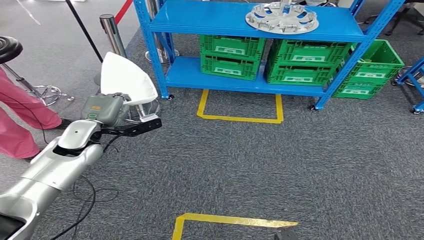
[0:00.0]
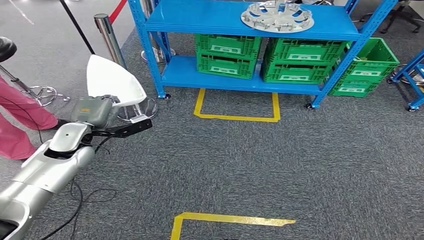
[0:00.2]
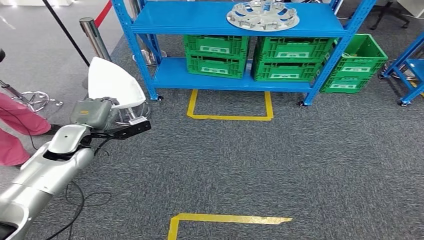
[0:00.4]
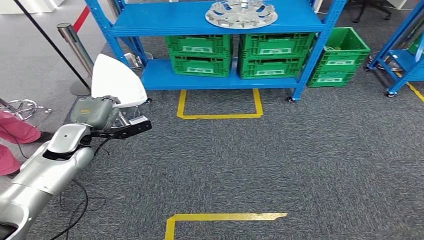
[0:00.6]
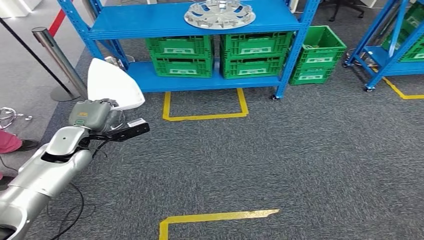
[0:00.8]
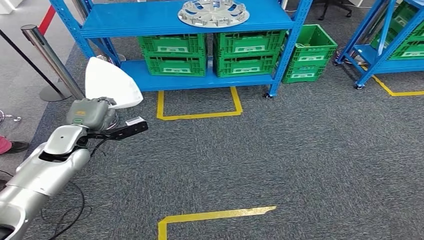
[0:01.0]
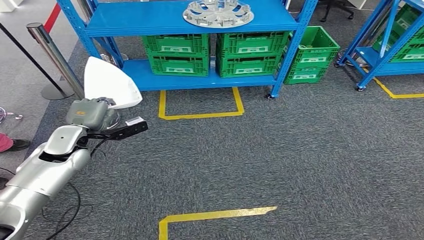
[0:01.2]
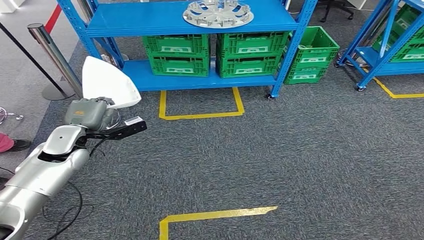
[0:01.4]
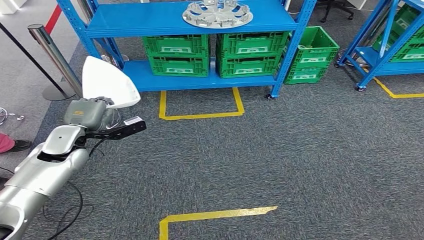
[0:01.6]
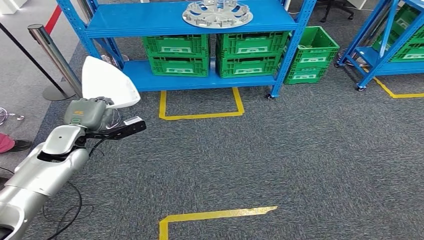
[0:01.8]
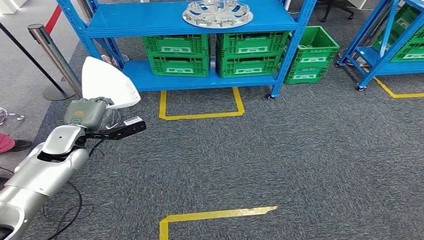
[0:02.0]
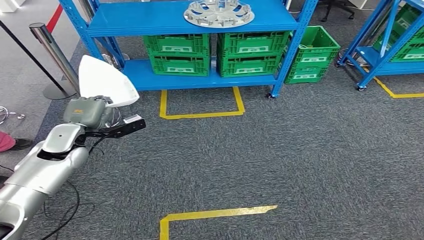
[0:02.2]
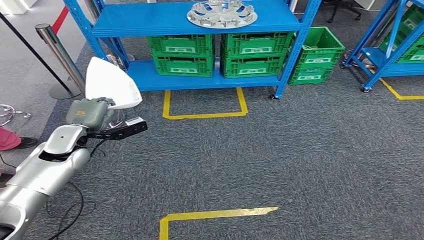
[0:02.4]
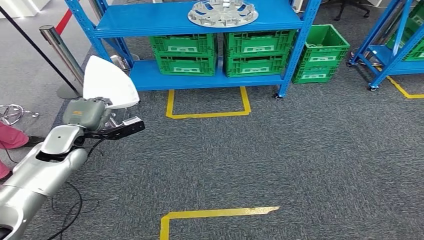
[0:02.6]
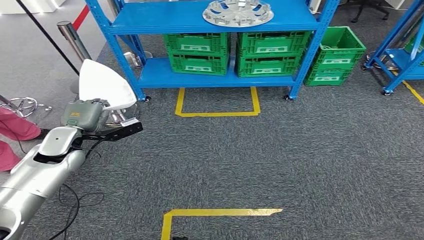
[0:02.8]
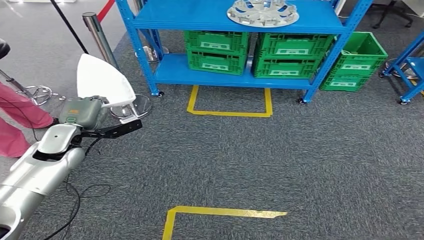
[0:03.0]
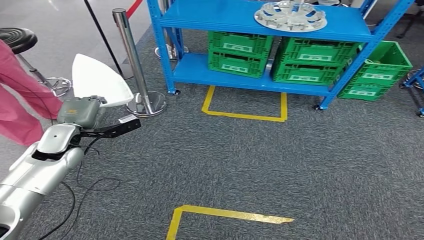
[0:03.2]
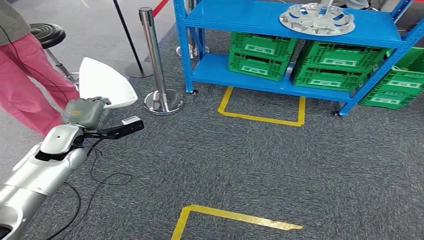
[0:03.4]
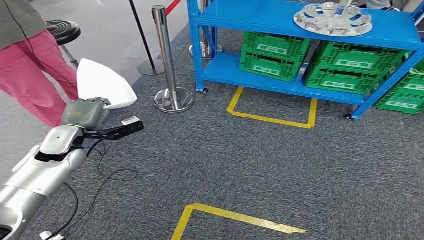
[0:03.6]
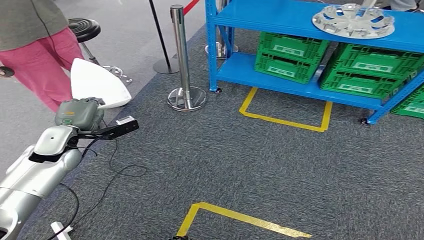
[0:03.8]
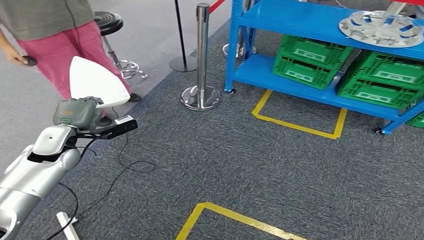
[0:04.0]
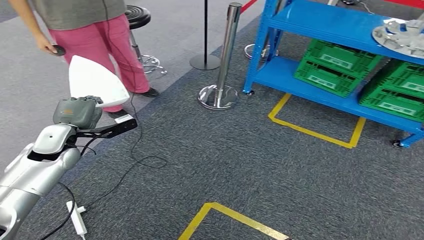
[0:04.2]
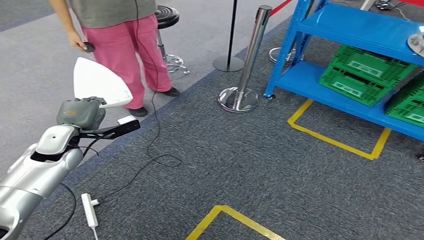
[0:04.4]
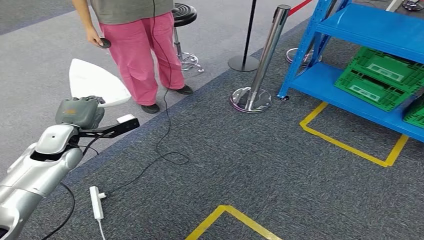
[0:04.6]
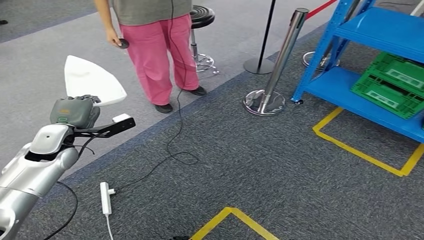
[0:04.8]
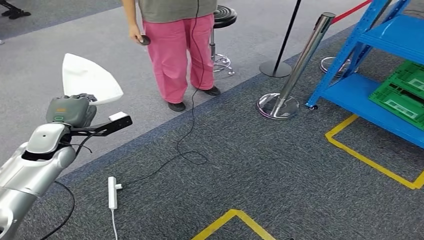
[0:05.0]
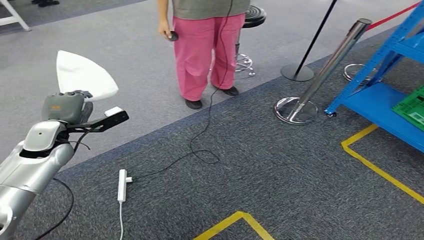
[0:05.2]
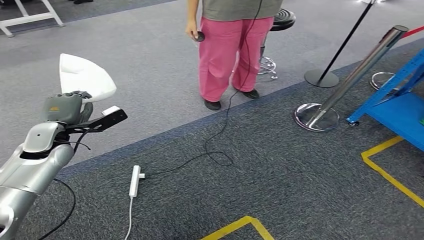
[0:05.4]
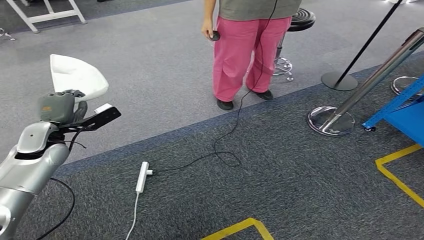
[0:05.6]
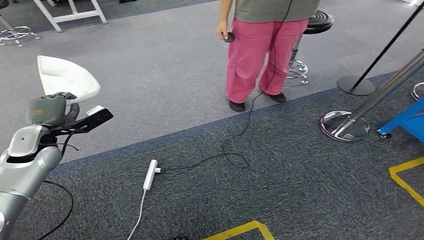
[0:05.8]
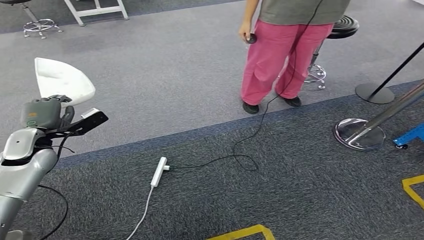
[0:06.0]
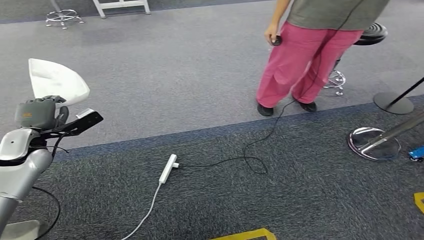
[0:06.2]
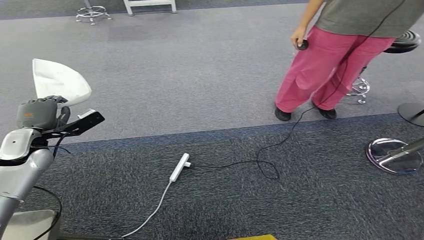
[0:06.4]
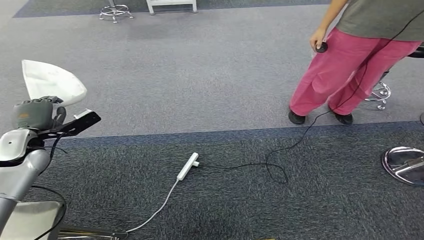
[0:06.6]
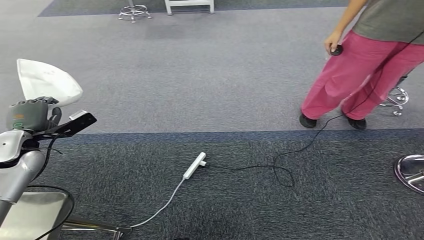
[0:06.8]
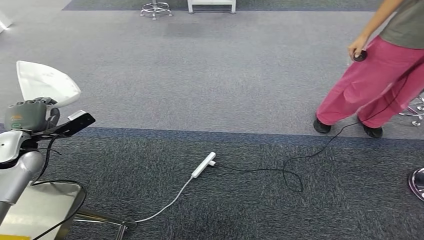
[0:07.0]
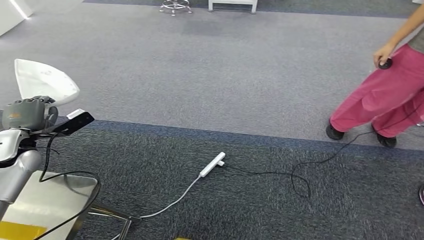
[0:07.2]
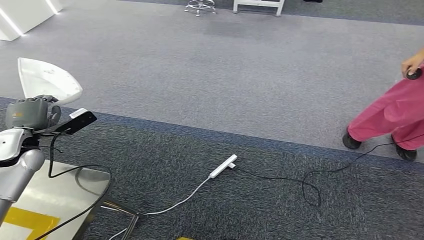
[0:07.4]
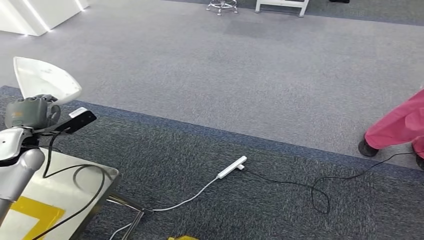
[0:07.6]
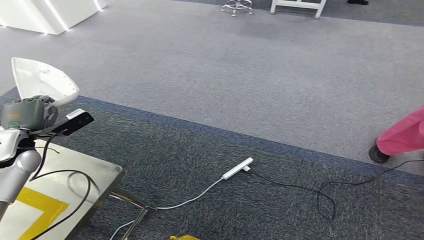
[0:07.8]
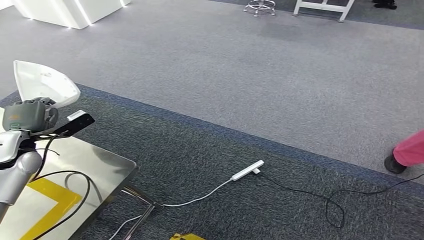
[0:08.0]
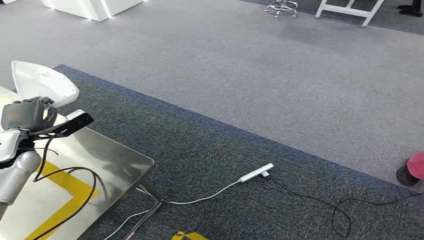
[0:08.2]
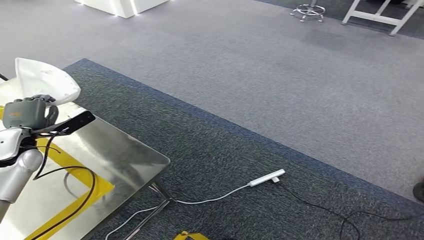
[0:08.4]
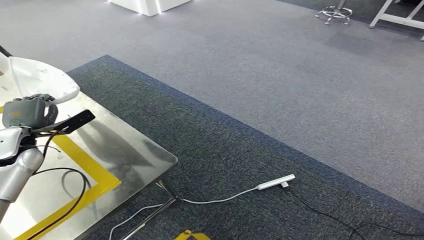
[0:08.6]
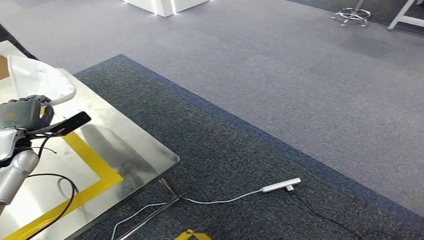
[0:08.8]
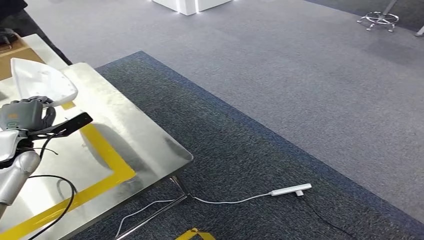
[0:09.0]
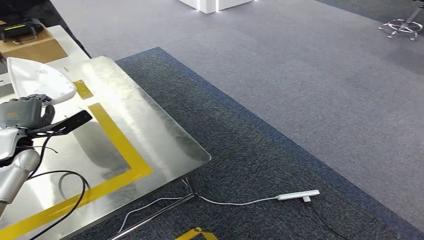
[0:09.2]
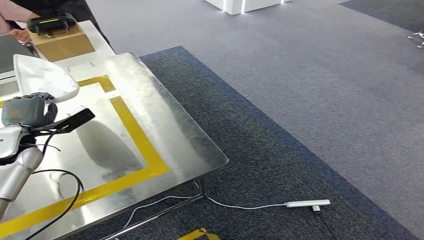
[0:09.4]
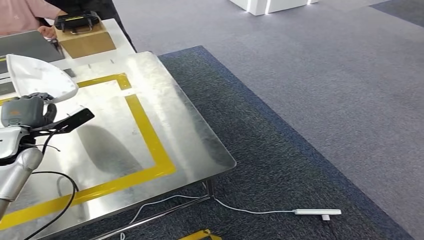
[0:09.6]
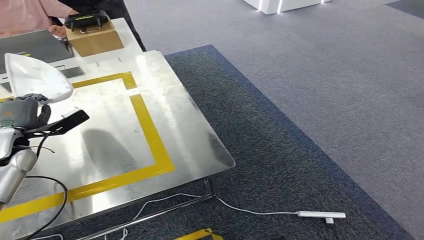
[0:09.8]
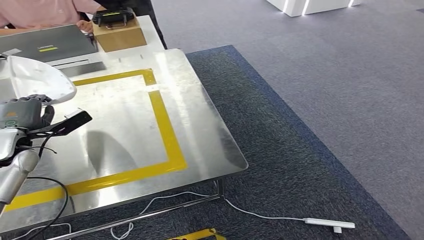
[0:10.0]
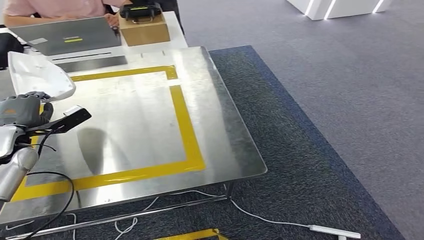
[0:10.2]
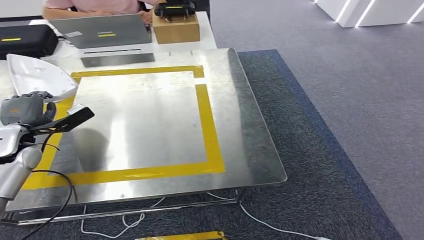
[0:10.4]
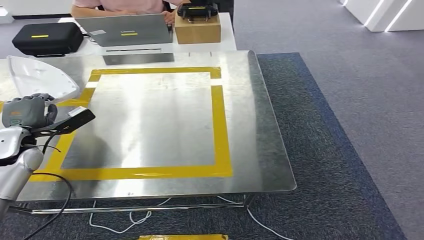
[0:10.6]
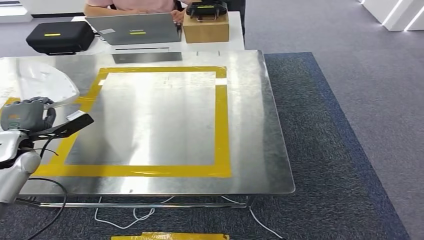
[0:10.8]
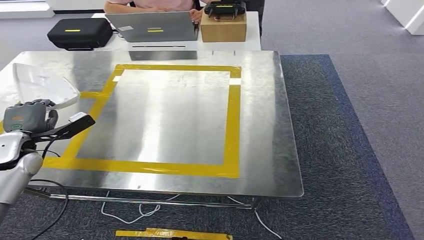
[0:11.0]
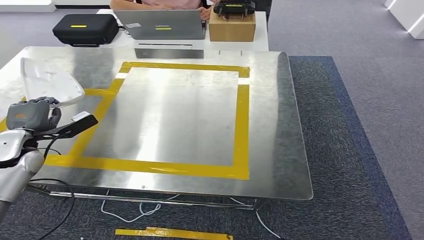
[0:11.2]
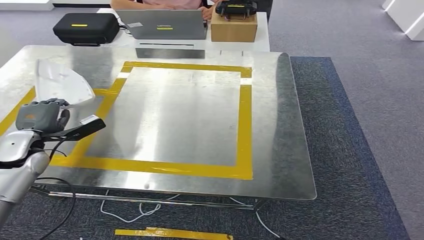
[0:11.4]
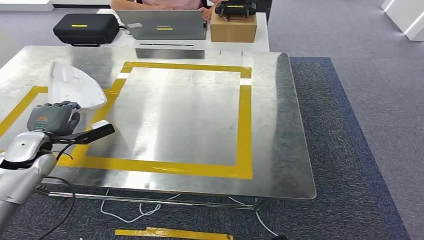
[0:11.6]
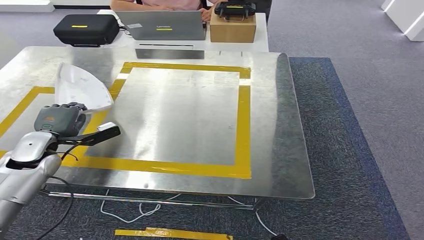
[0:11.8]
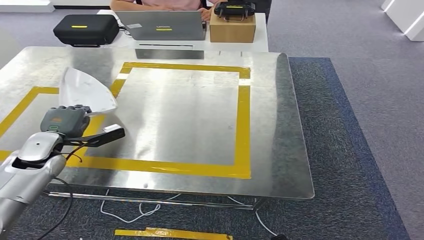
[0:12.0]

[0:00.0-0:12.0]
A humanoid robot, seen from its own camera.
Step, 0:00.0 to 0:09.6: Move the small component to the workbench.

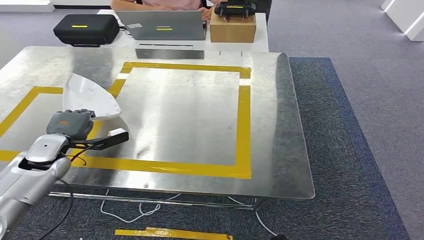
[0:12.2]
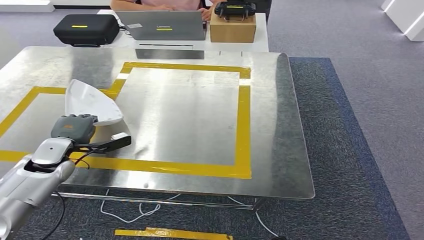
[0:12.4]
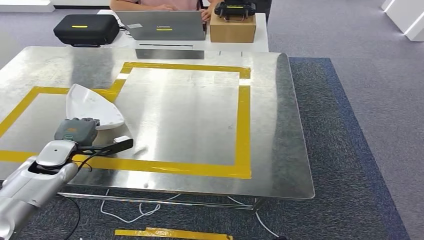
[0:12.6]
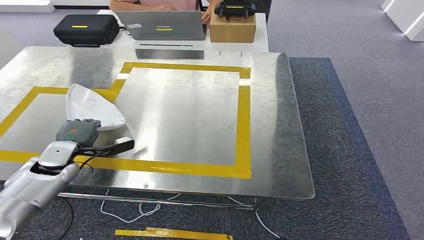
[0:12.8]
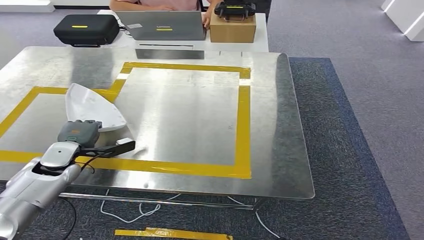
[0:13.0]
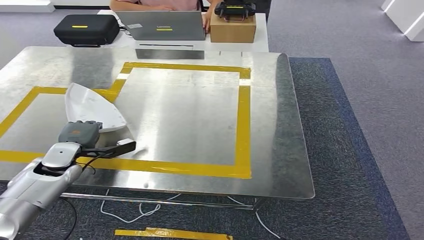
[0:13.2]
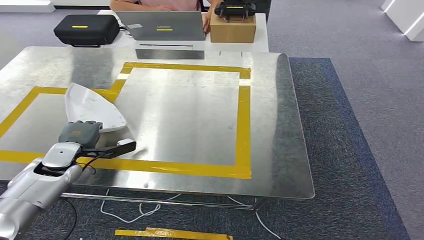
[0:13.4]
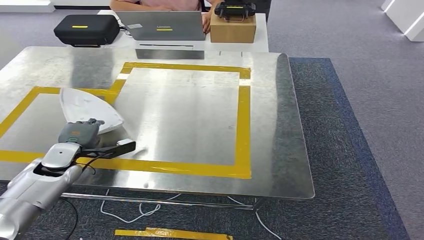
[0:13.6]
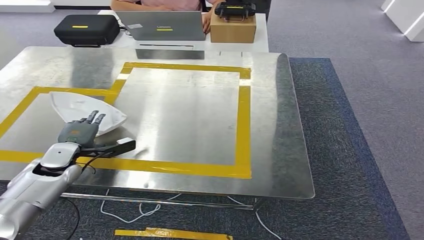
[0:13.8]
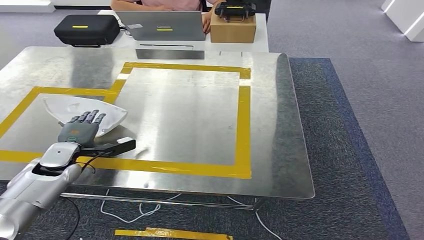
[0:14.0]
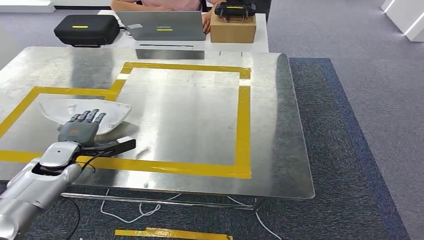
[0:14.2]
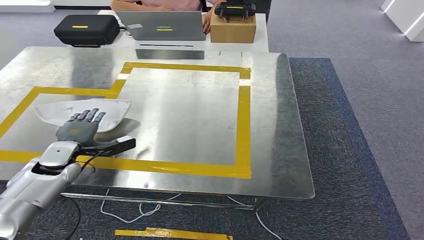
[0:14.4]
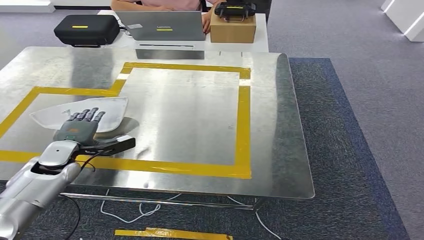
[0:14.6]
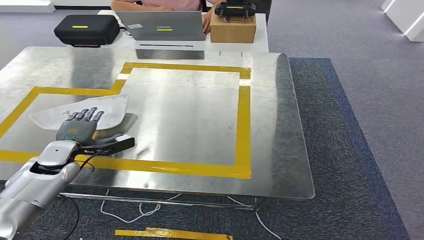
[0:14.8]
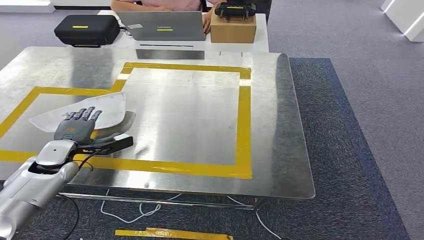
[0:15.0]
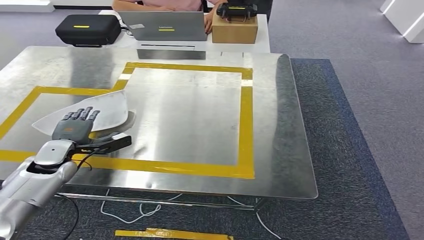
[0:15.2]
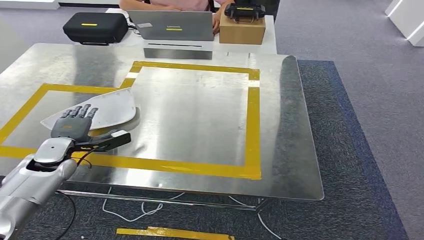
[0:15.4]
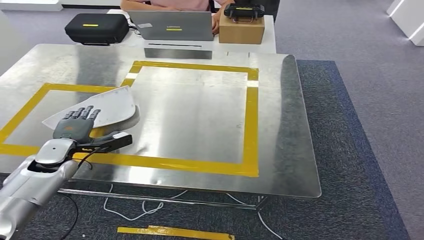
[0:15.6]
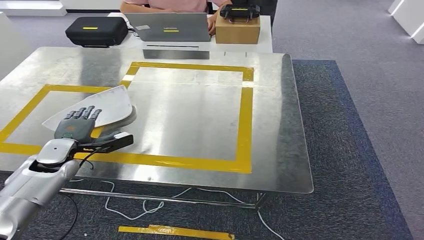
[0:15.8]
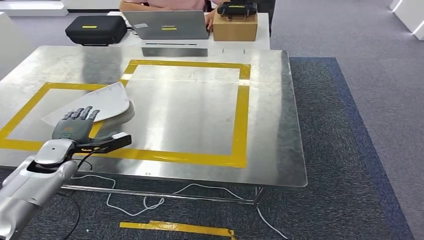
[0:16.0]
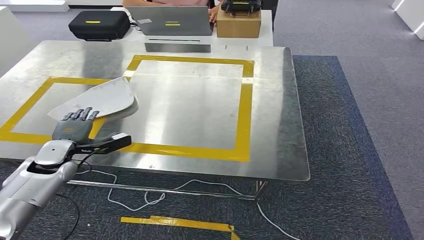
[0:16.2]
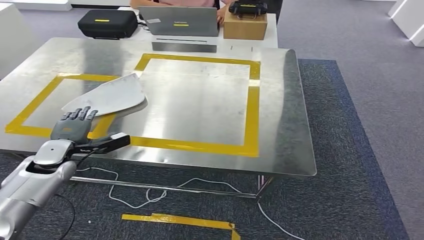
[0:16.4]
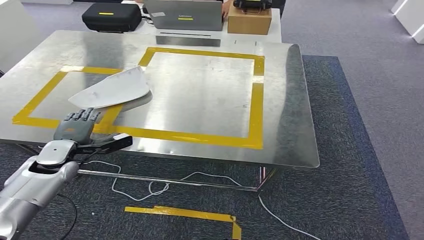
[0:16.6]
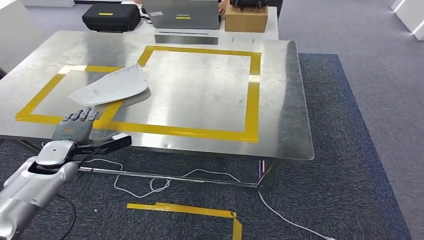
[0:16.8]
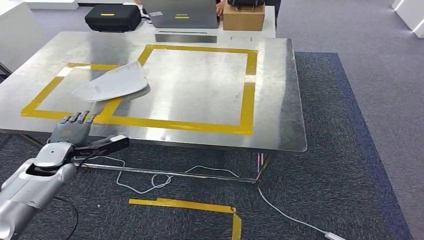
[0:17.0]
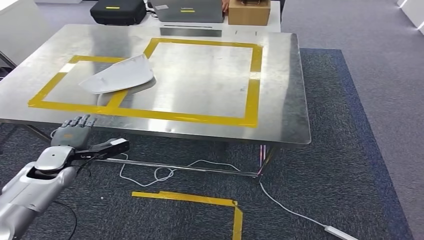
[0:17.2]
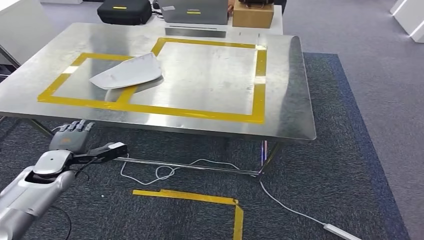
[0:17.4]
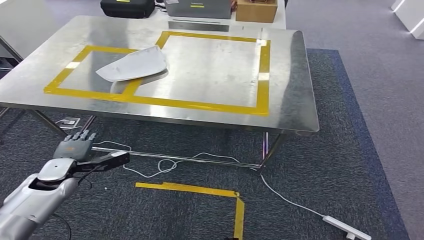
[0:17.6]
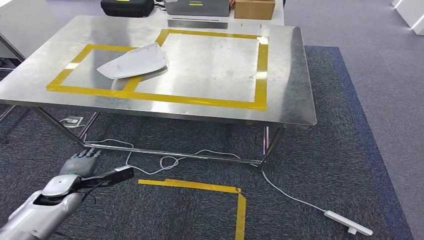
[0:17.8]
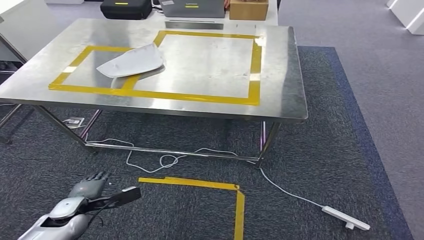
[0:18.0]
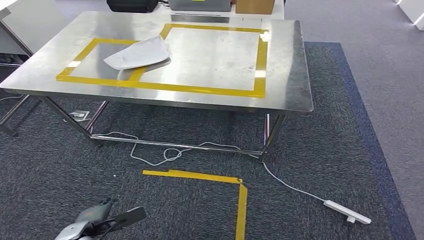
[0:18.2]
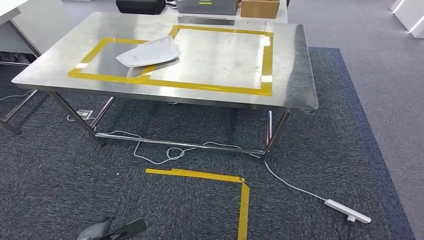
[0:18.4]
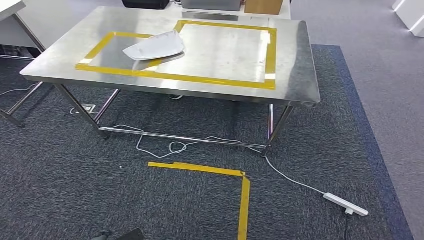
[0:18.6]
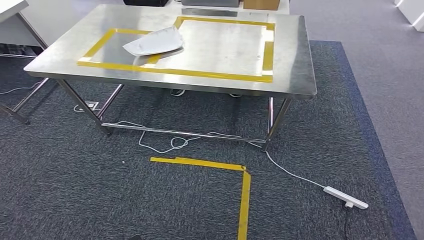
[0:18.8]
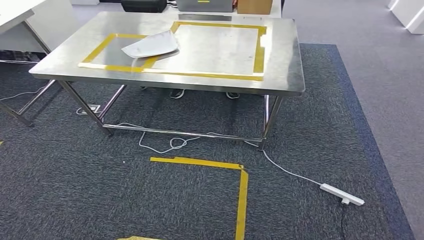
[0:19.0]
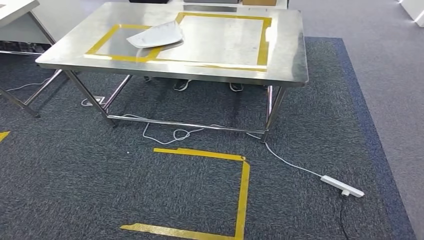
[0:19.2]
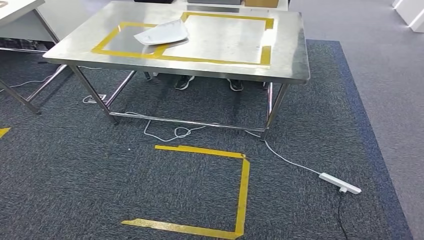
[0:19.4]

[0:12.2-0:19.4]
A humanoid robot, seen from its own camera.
0:12.2 to 0:13.6: There are only small adjustments of the hands.
0:13.6 to 0:15.0: Both hands stay put.
